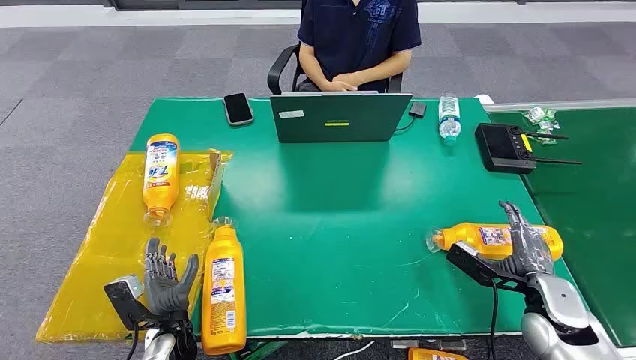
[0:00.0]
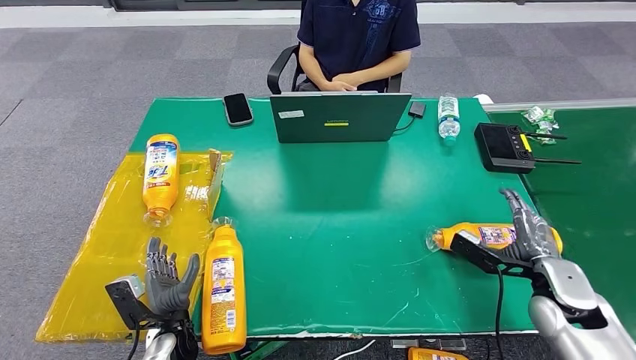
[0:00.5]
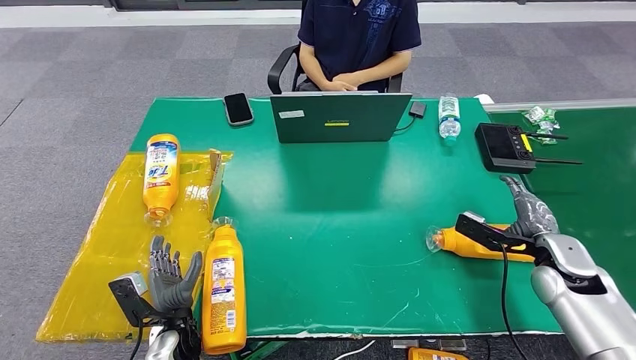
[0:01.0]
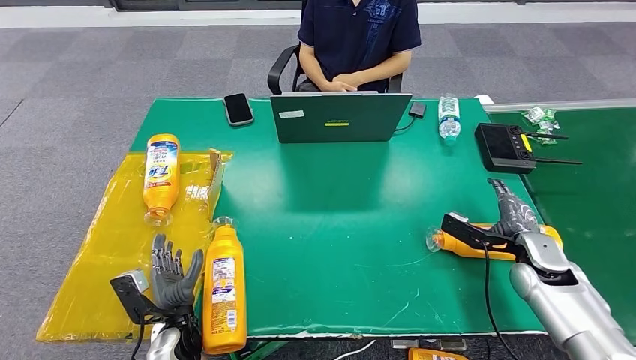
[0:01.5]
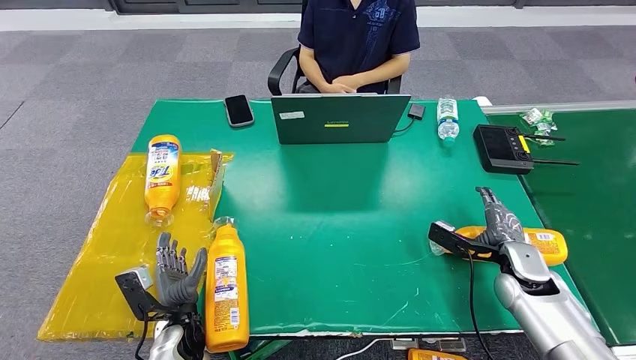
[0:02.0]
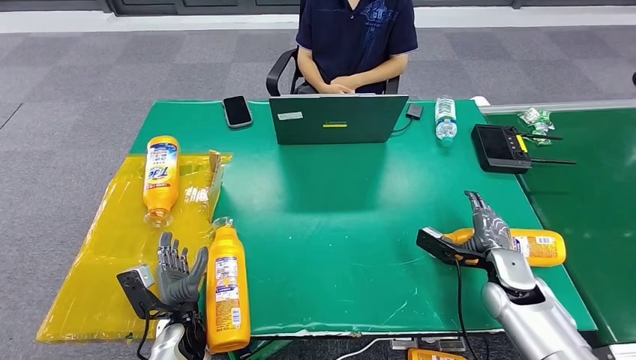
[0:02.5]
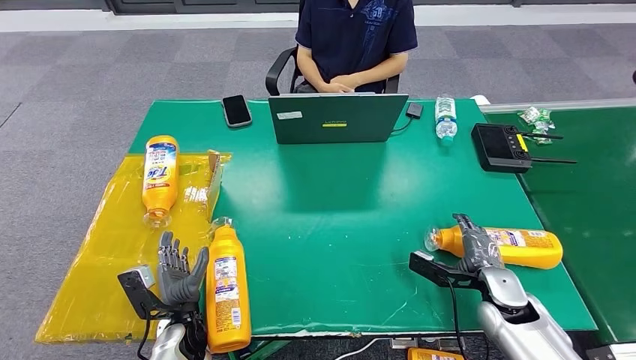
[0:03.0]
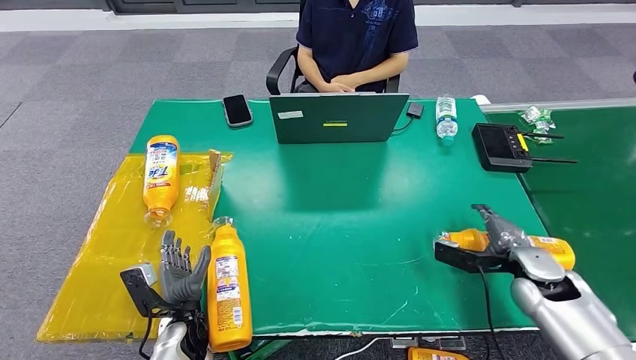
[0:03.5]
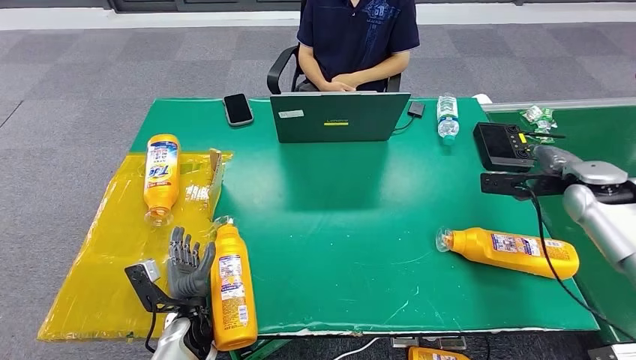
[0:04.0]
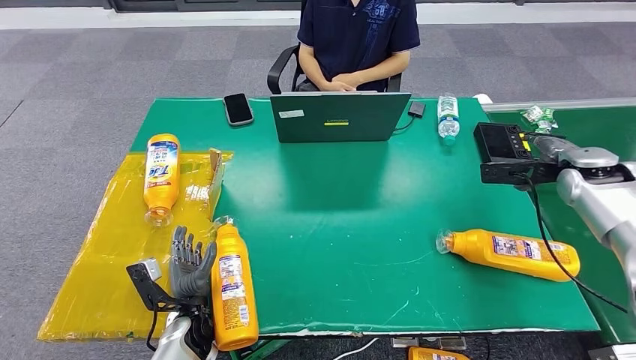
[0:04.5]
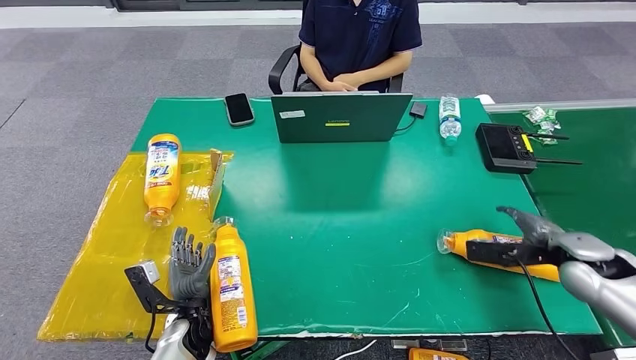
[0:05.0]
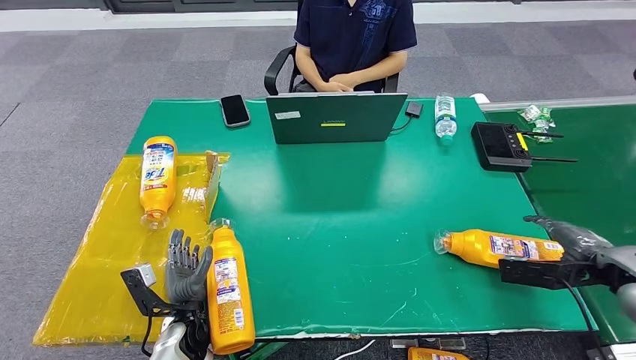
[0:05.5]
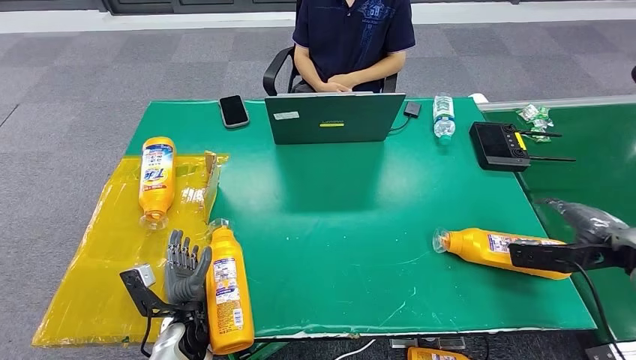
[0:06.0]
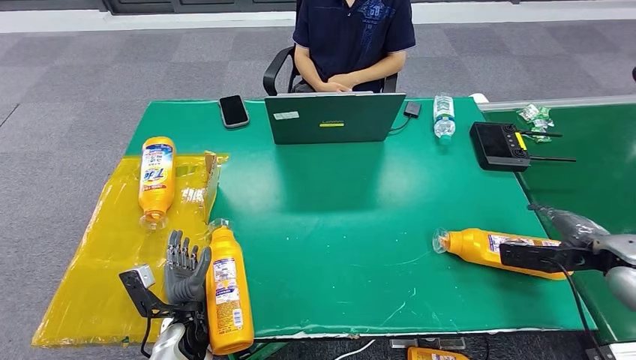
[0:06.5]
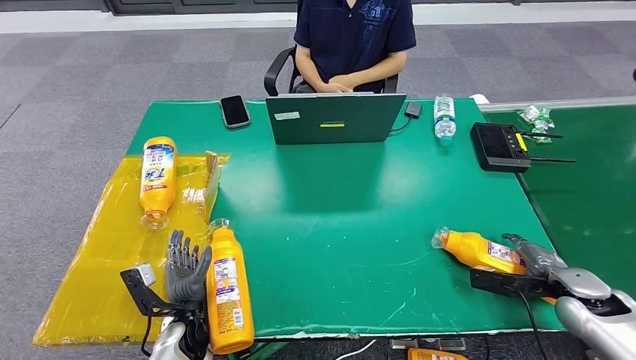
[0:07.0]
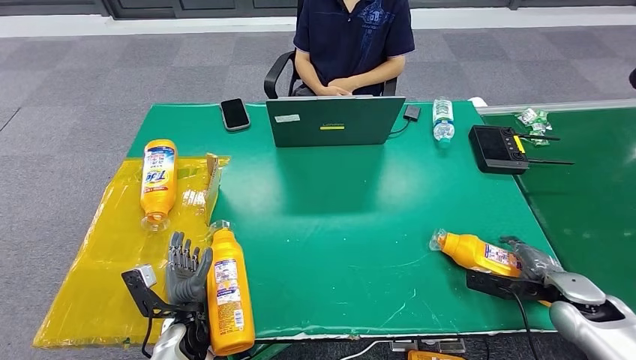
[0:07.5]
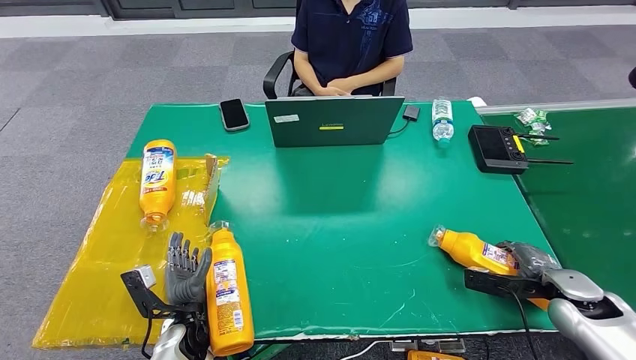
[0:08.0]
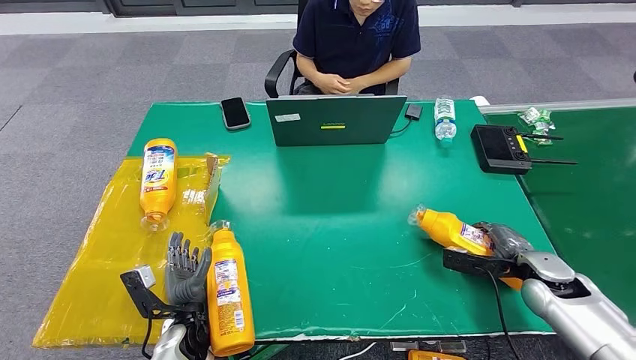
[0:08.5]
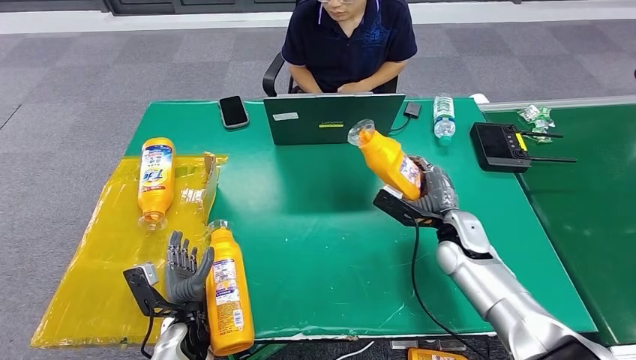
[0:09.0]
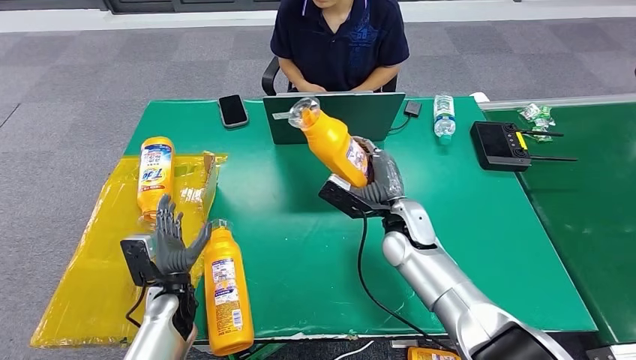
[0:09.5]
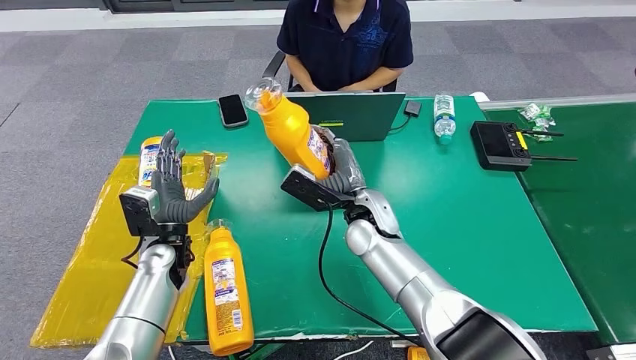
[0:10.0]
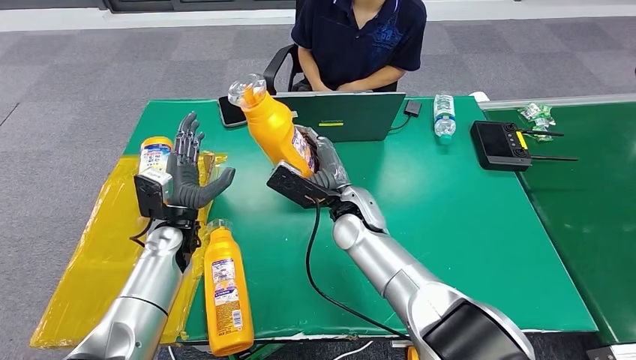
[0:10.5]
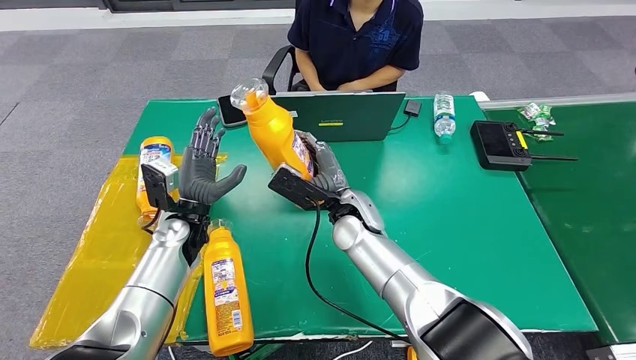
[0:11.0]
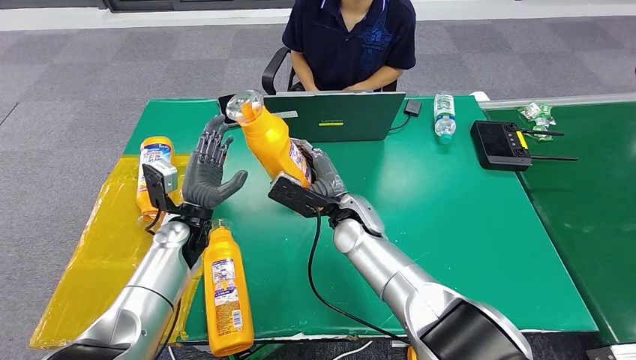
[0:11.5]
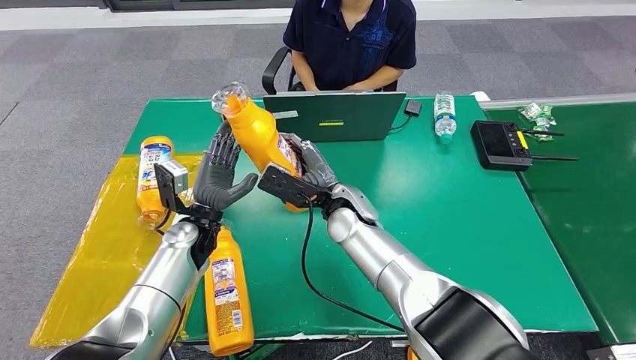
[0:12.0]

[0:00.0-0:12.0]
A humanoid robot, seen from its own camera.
Step, 0:00.0 to 0:09.0: Pick up the bottle from the table.
0:02.0 to 0:04.0: The right hand shifts some 20 cm upward, forward and to the right.
0:04.0 to 0:06.0: The right hand moves backward, some 10 cm.
0:06.0 to 0:08.0: The right hand goes approximately 15 cm downward.
0:10.0 to 0:12.0: The left hand shifts by about 5 cm.

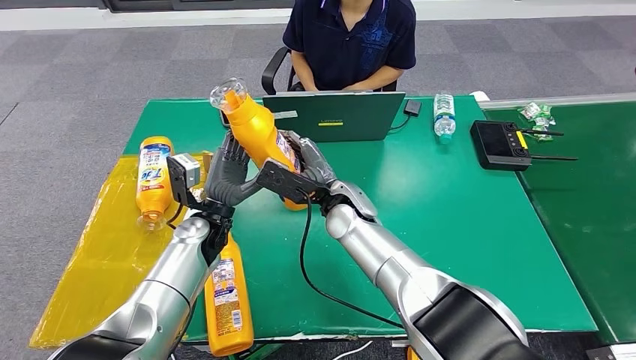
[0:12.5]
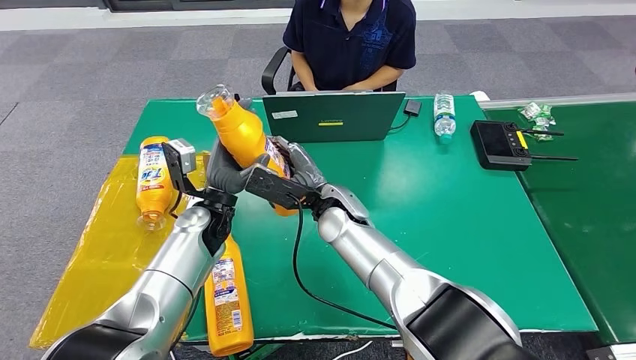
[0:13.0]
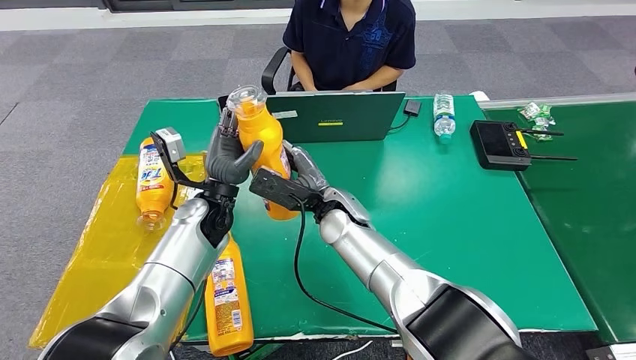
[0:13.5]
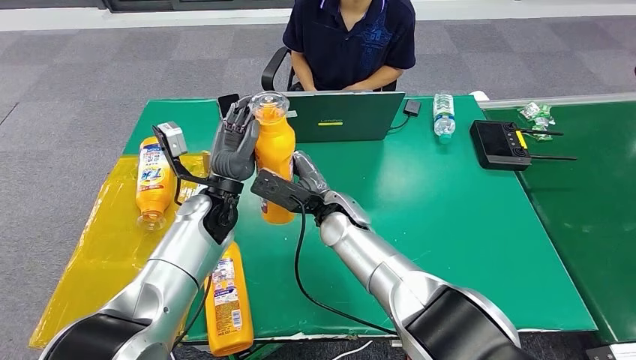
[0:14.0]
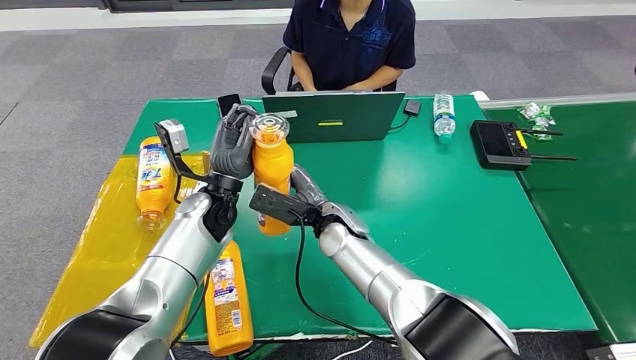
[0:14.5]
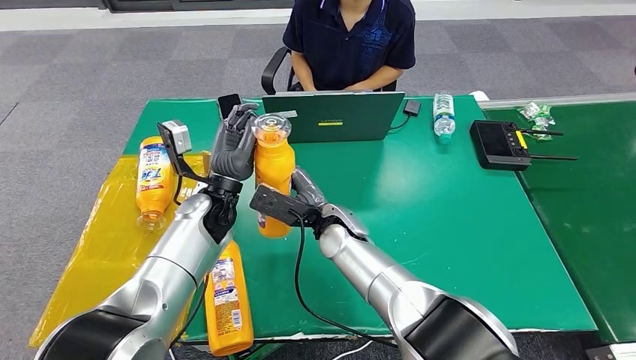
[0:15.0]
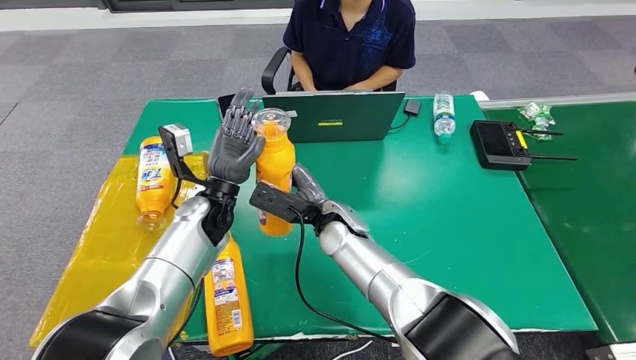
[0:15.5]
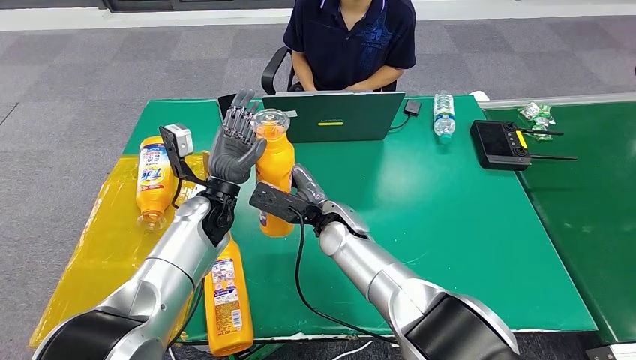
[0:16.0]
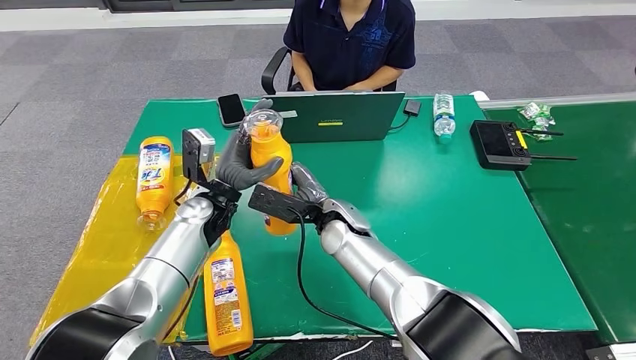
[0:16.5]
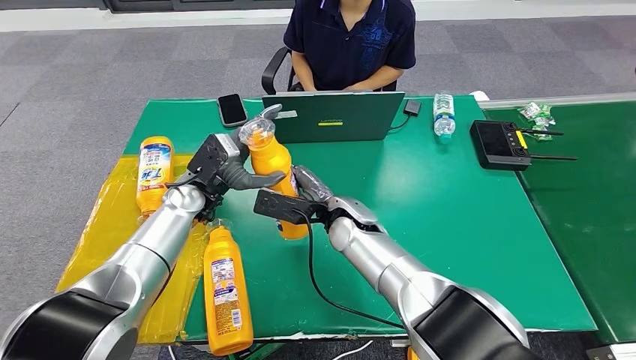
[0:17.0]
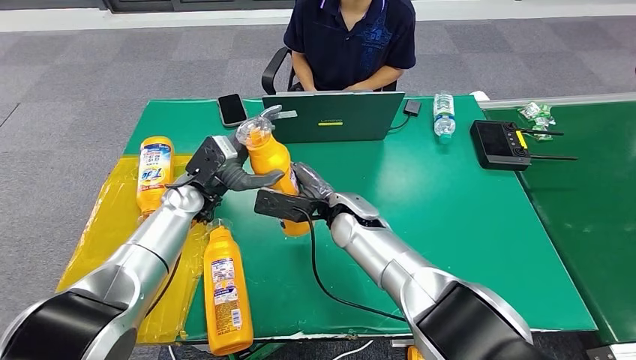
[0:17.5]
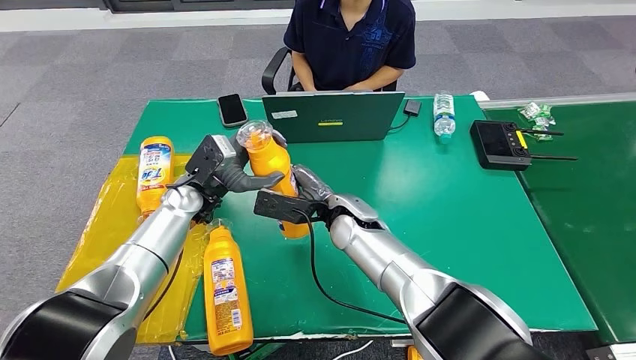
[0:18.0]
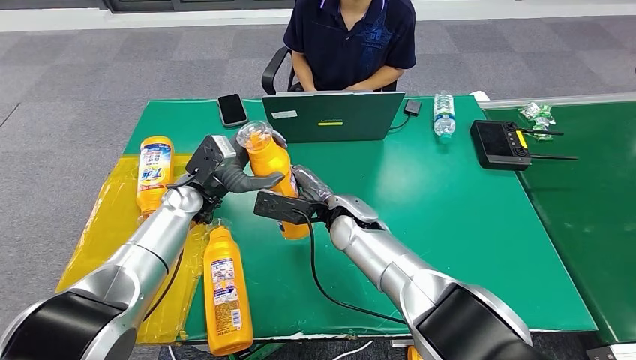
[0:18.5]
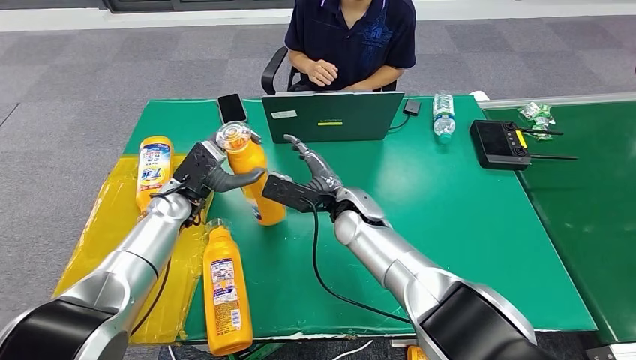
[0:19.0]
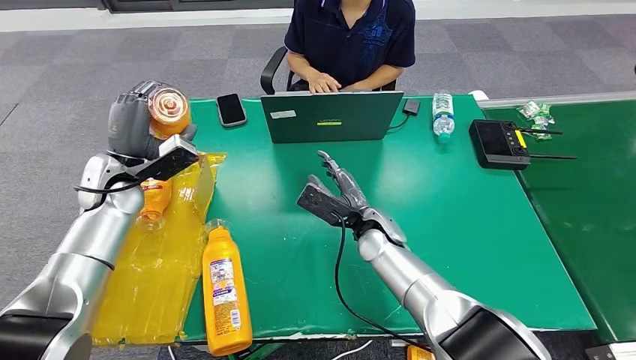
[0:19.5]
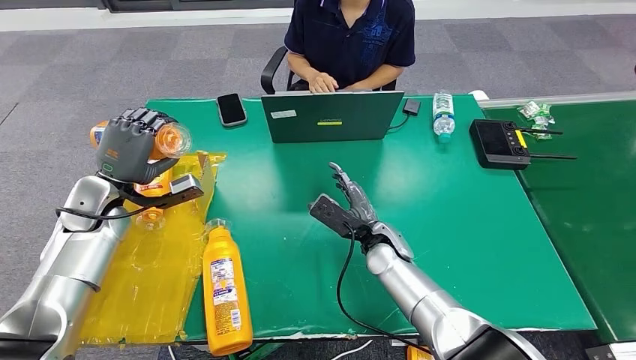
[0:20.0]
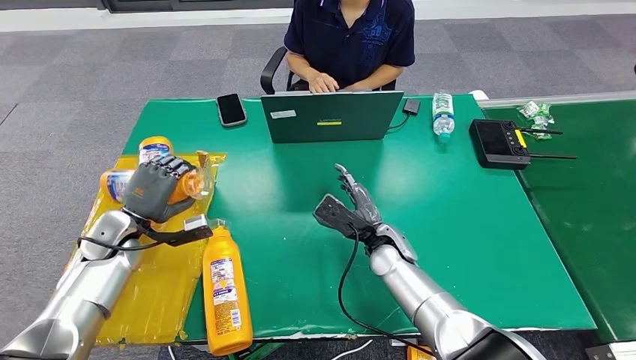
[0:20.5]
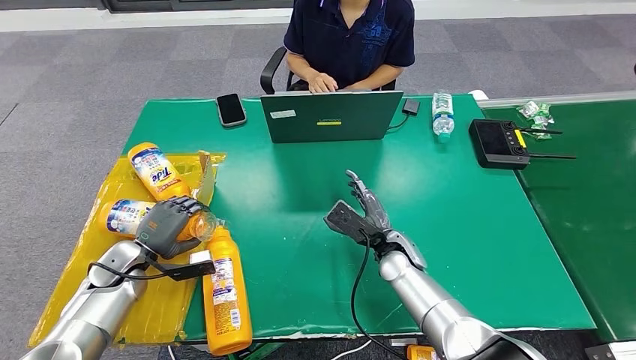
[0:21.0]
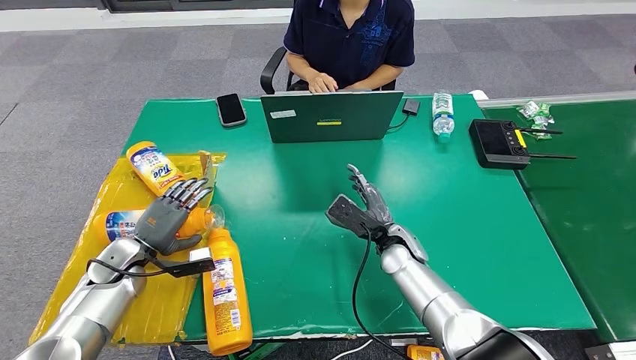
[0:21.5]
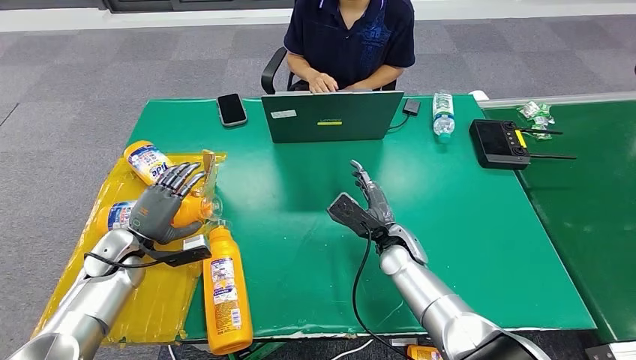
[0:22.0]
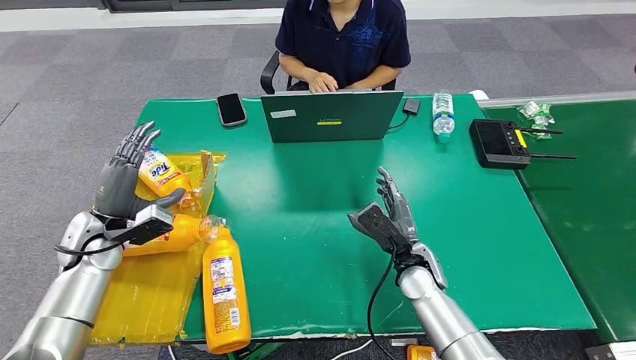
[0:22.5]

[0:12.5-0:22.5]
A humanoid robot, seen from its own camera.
Step, 0:12.5 to 0:22.5: Turn the bottle to the front side.
0:12.5 to 0:14.5: The left hand ends up roughly 5 cm from where it was.
0:14.5 to 0:16.5: The hands move only a little.
0:16.5 to 0:18.5: The left hand moves about 5 cm.
0:20.5 to 0:22.5: The right hand shifts about 5 cm to the right. The left hand goes downward and returns, approximately 5 cm each way.
